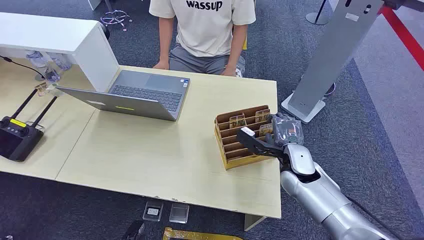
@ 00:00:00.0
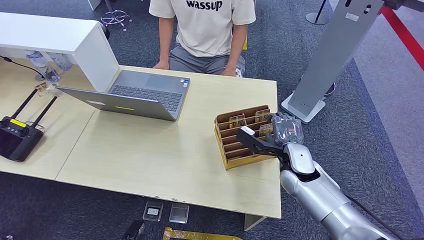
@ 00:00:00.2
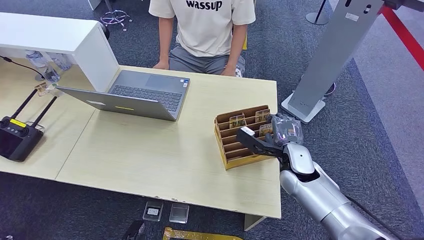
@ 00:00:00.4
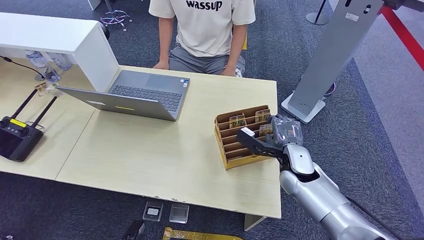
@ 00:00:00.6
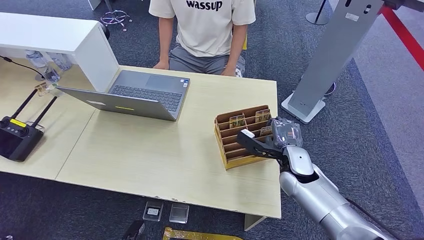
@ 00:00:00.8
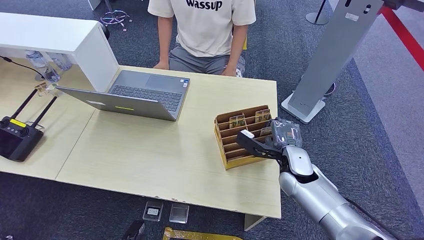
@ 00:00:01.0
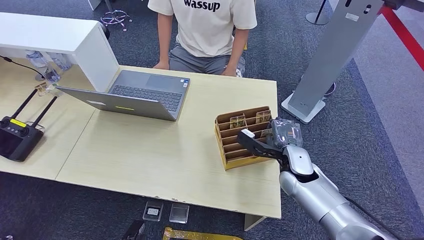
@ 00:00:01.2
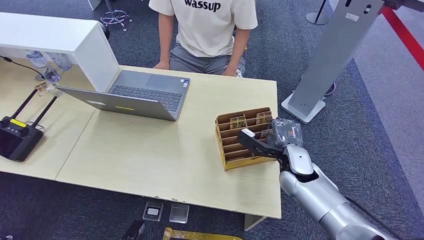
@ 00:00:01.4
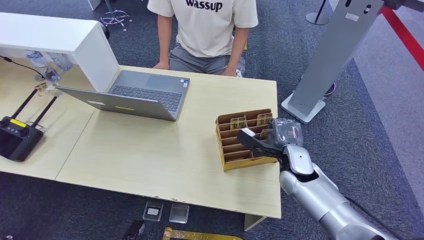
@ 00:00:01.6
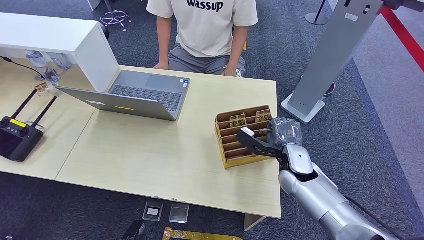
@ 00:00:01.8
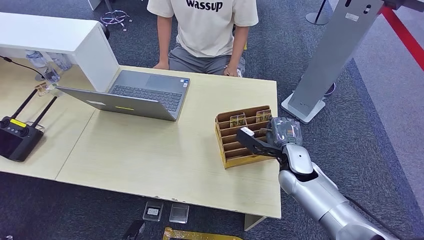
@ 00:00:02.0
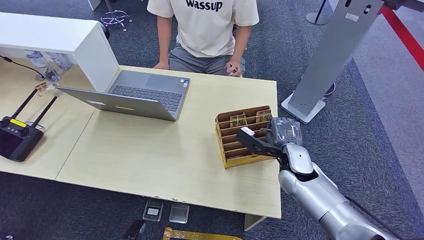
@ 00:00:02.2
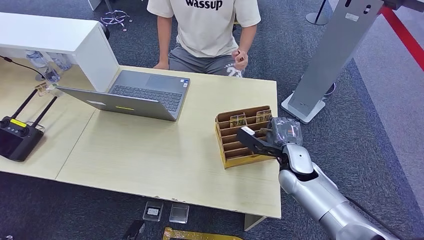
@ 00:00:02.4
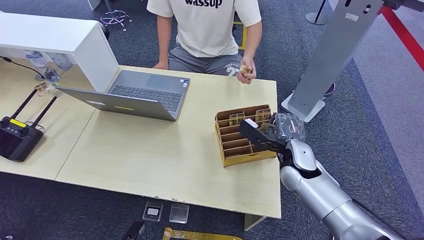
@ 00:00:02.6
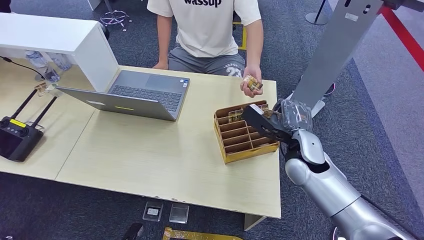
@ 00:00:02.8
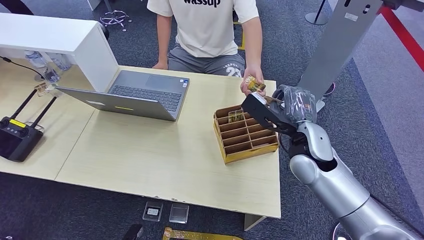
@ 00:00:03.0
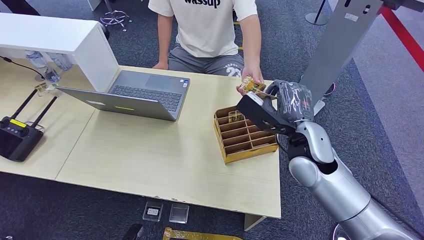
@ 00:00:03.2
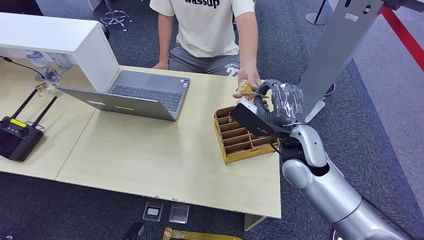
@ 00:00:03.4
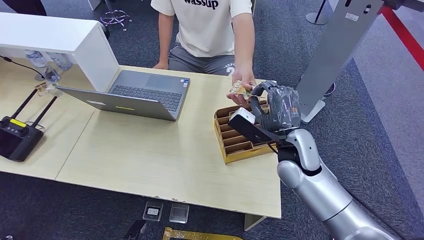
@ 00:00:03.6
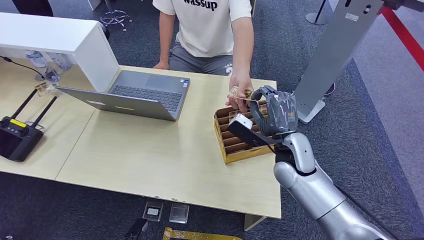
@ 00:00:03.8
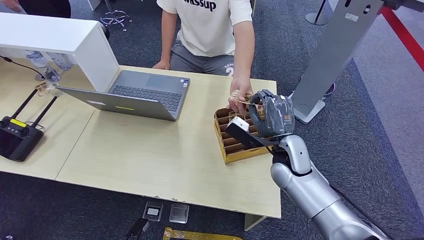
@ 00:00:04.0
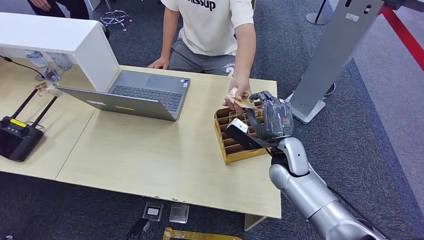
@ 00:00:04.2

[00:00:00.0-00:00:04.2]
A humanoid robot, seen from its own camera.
Step, 00:00:00.0 to 00:00:02.4: Pick up the key card from the card box.
Step, 00:00:03.2 to 00:00:04.2: Hand the key card to the target.
00:00:01.4 to 00:00:02.8: The right hand travels upward by about 5 cm.
00:00:02.8 to 00:00:04.2: The right hand goes upward and returns, some 5 cm each way.
